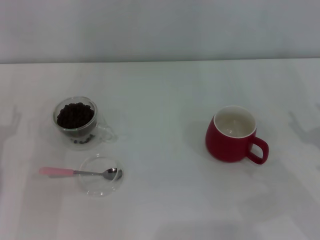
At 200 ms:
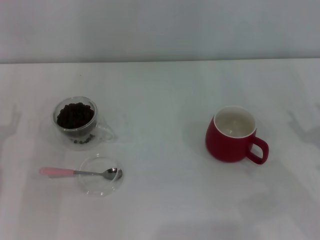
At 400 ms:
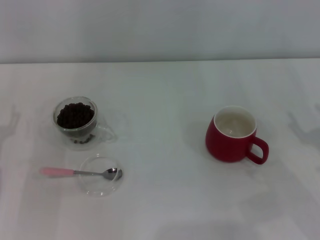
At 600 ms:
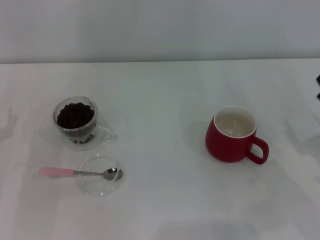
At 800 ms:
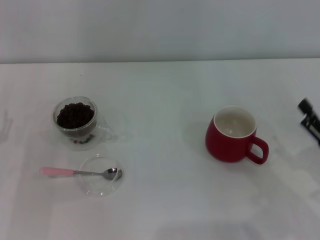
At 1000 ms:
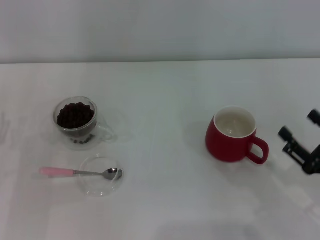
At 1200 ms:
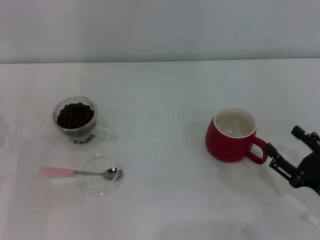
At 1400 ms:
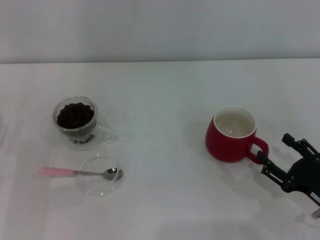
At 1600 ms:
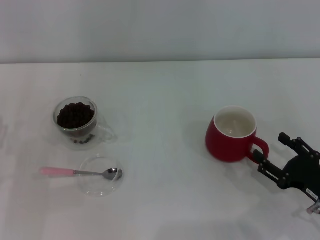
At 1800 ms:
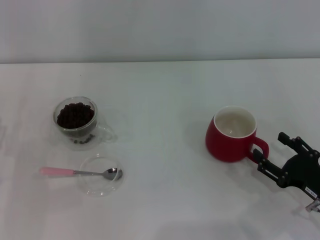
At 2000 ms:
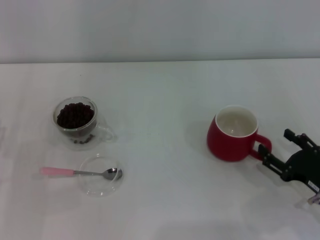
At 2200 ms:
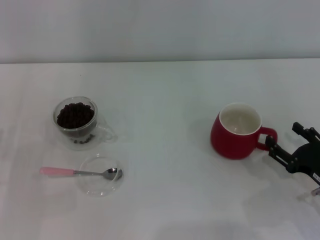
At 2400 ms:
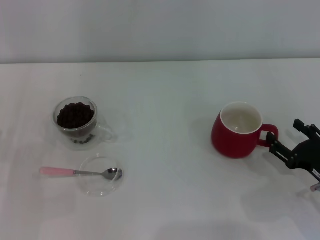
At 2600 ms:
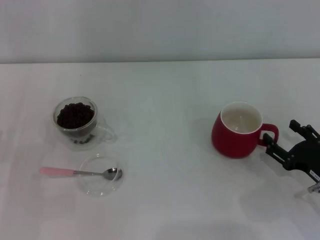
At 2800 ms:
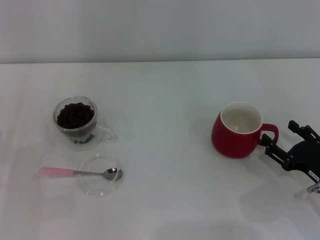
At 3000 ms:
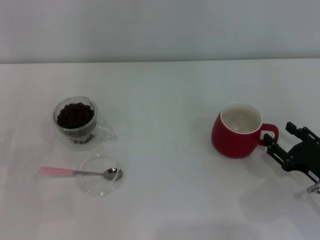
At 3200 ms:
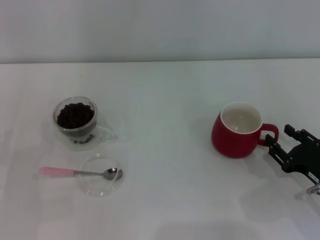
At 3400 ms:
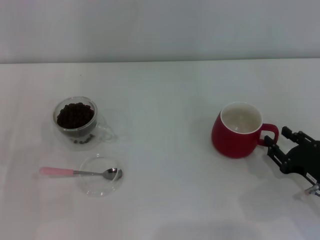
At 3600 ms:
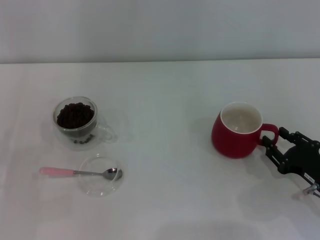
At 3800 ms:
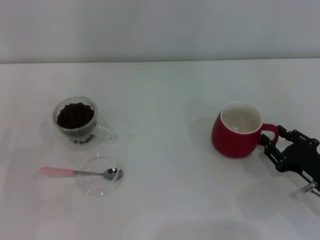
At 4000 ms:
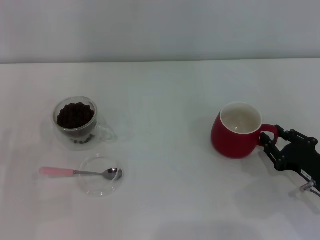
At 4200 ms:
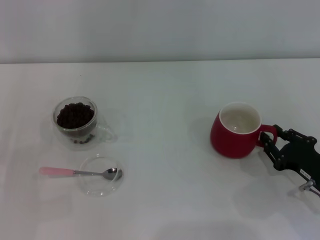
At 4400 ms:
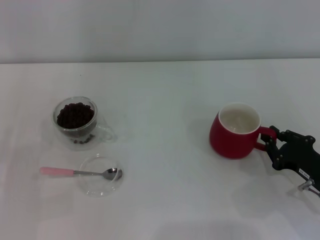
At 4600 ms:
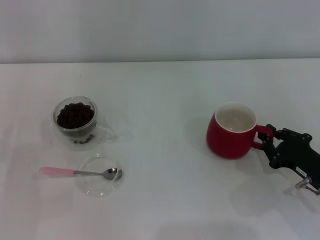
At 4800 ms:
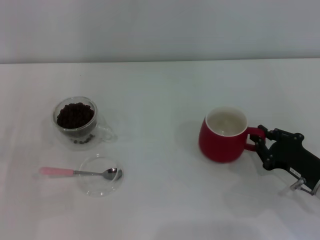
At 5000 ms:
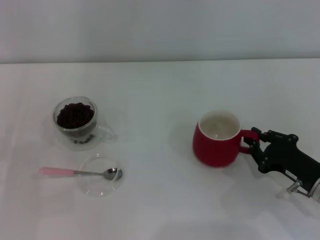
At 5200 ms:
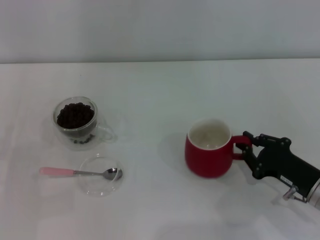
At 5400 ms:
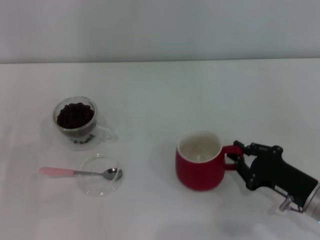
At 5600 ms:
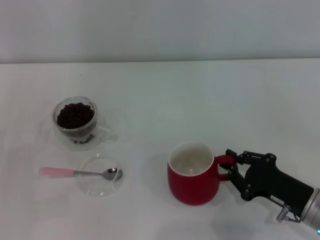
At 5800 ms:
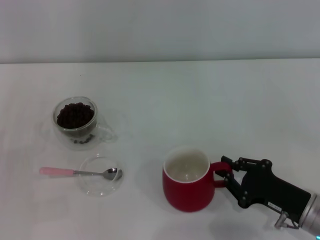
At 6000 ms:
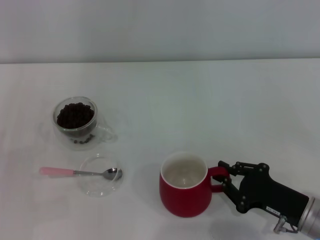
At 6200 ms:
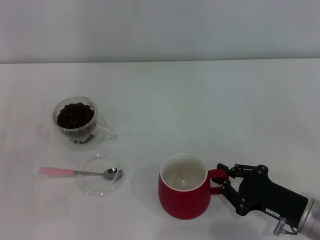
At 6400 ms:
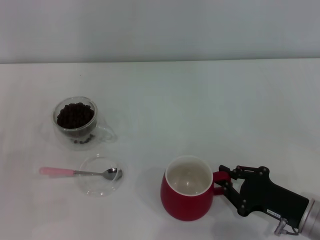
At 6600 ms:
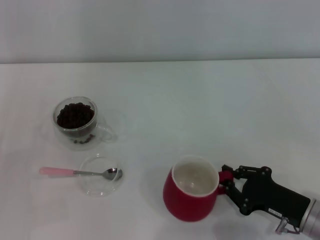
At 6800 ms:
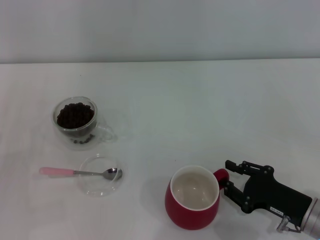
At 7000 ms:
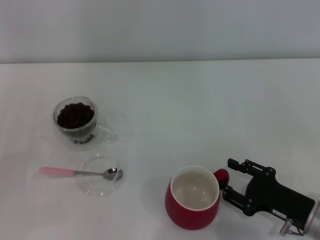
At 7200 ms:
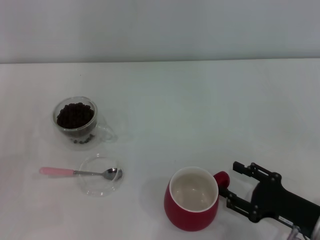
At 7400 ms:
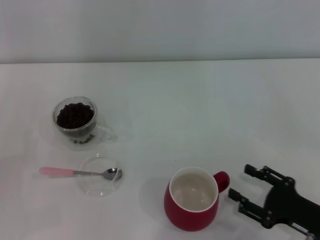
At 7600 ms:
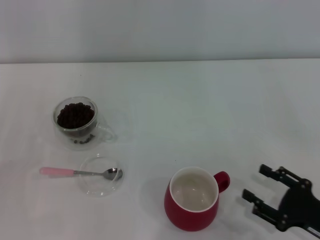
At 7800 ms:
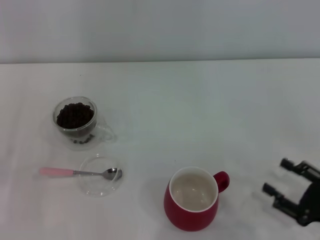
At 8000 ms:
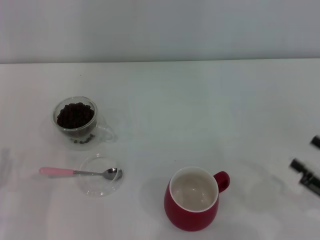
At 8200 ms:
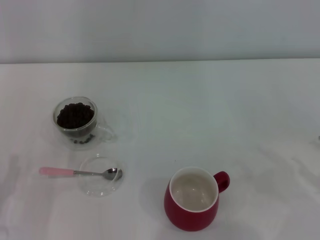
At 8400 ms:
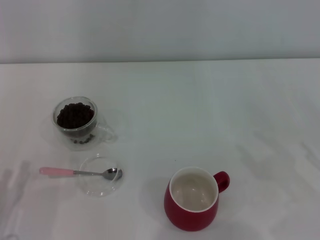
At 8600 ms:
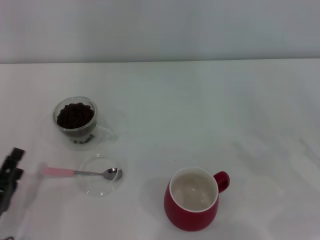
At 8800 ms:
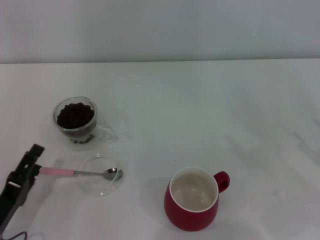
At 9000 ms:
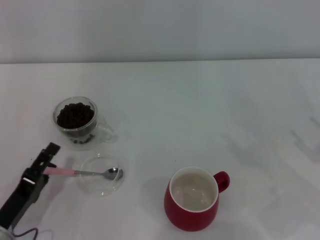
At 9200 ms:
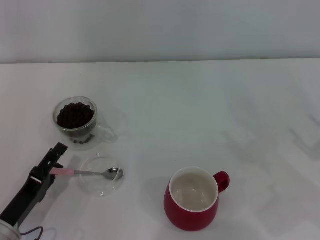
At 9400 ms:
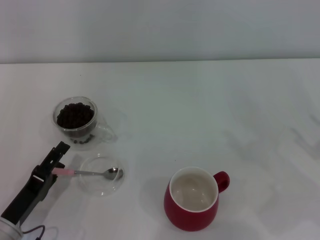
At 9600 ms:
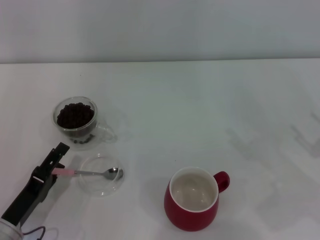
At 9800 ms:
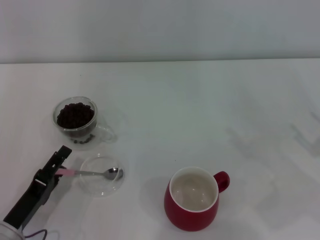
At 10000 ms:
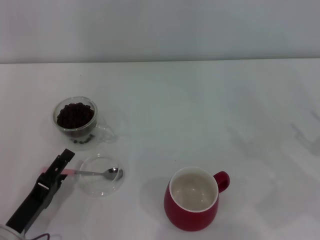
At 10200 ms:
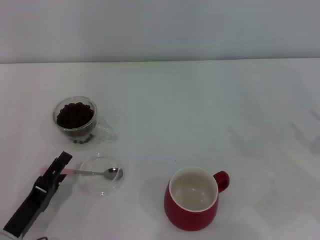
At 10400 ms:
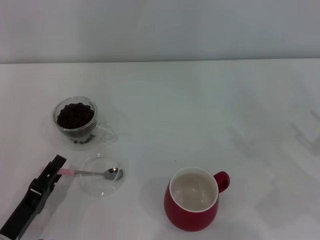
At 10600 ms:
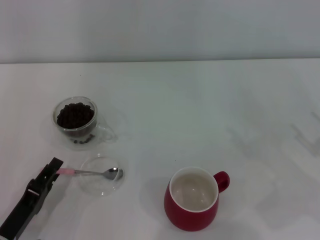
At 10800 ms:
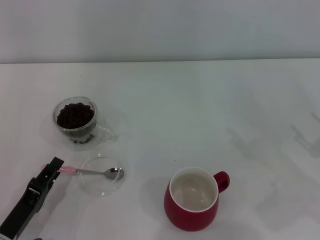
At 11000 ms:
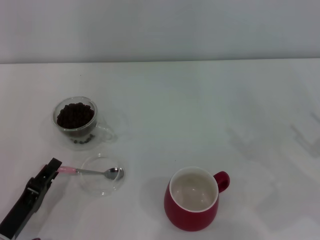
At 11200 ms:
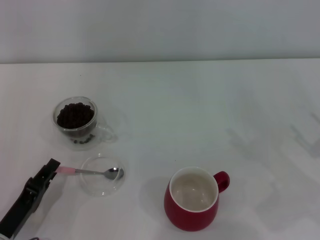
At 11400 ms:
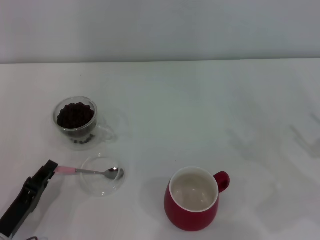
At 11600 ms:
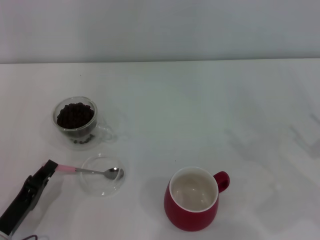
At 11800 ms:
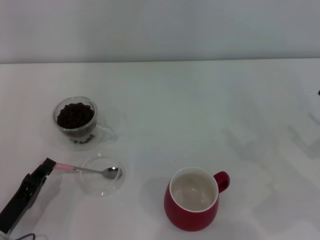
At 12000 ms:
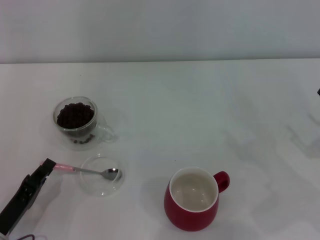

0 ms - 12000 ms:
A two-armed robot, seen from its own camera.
Task of the whole recording: Use a pink spoon to take out the coffee beans from the glass and pour them into the red cup.
Step, 0 ms - 7400 ms: Move the cup to the center of view with the left gripper.
0 ms - 1600 ms: The right gripper heads downward, covering some 5 cm.
1600 ms - 3000 ms: The grippers make only small movements.
3000 ms - 4400 ms: The right gripper closes its fingers.
4400 ms - 6000 ms: The right gripper shifts by approximately 5 cm.
6000 ms - 7600 ms: The right gripper changes place by roughly 5 cm, and opens.
7600 ms - 9000 ms: The left gripper shifts some 10 cm to the right. Meanwhile the right gripper heads to the right, upward and forward, covering some 10 cm.
9000 ms - 10400 ms: The grippers make only small movements.
10400 ms - 12000 ms: The left gripper closes up.

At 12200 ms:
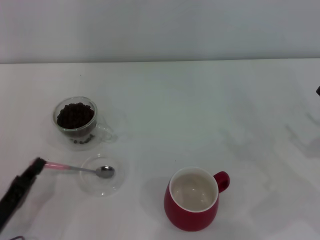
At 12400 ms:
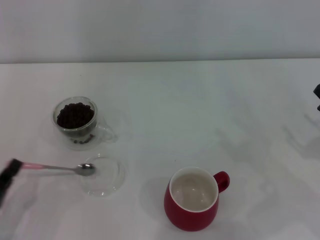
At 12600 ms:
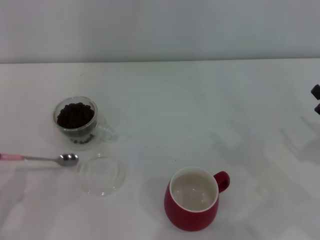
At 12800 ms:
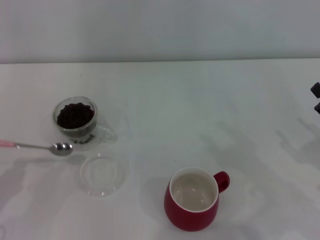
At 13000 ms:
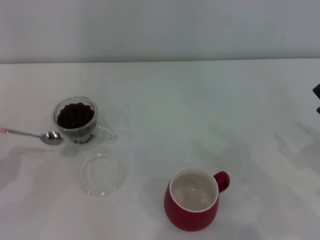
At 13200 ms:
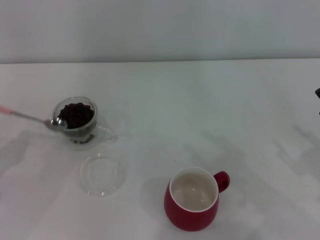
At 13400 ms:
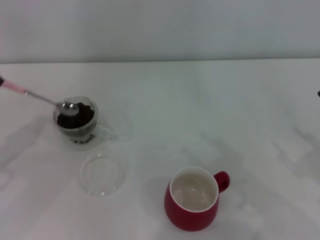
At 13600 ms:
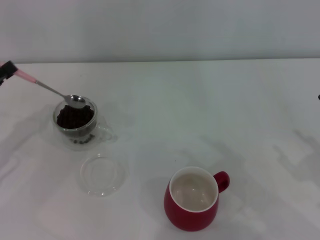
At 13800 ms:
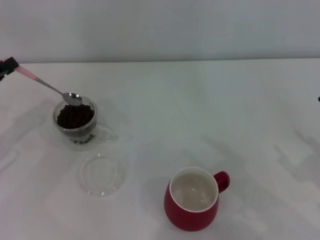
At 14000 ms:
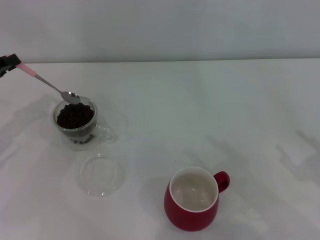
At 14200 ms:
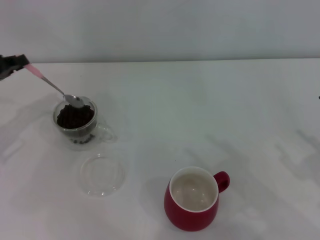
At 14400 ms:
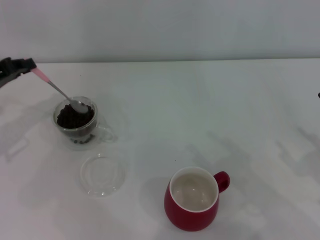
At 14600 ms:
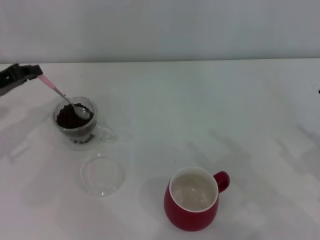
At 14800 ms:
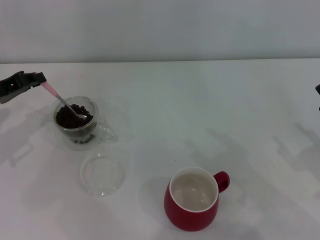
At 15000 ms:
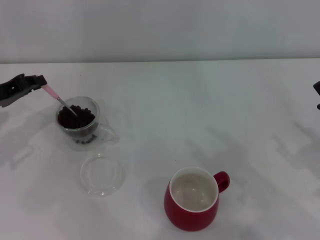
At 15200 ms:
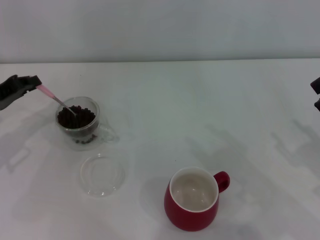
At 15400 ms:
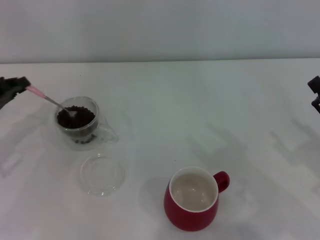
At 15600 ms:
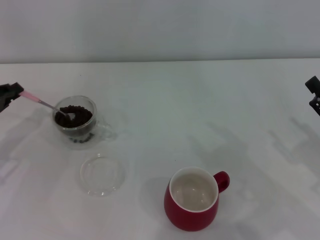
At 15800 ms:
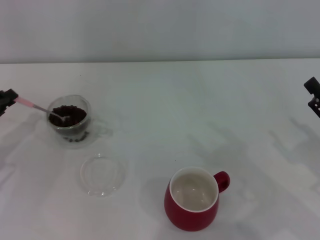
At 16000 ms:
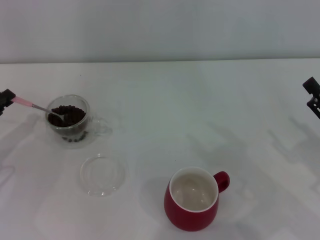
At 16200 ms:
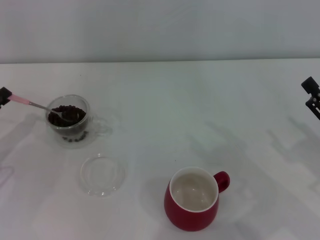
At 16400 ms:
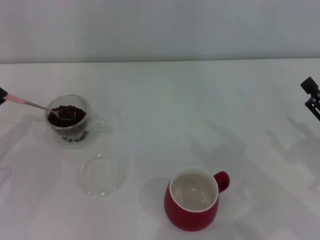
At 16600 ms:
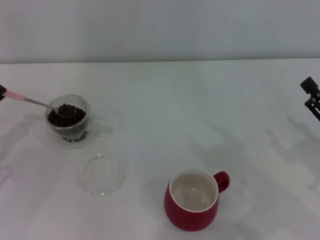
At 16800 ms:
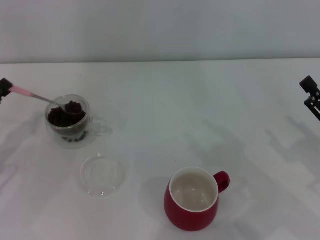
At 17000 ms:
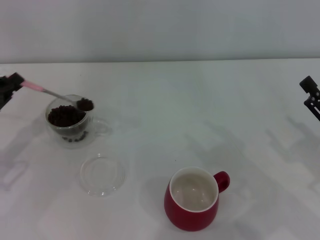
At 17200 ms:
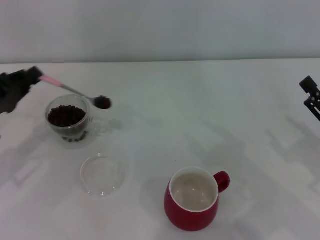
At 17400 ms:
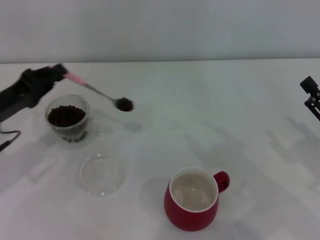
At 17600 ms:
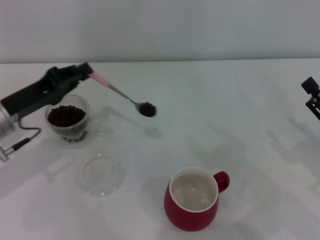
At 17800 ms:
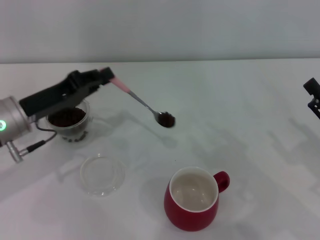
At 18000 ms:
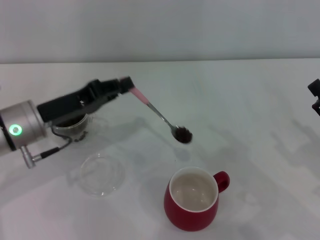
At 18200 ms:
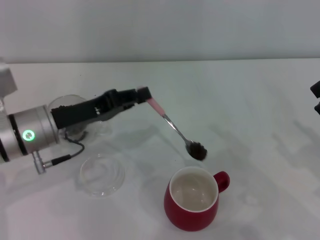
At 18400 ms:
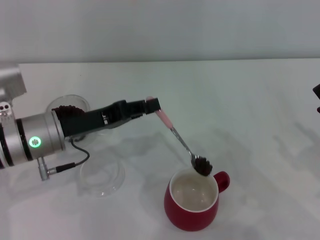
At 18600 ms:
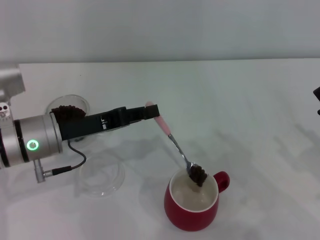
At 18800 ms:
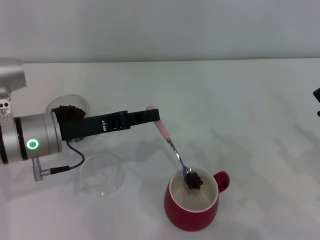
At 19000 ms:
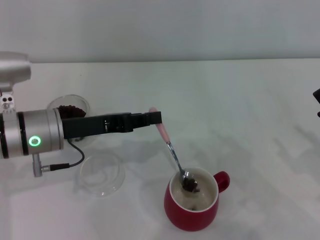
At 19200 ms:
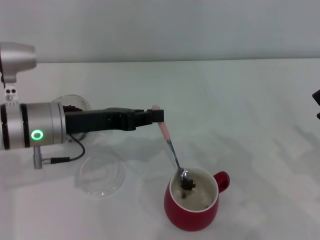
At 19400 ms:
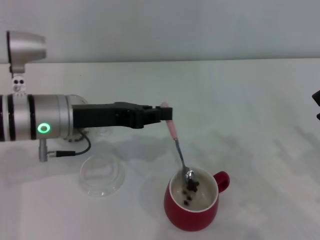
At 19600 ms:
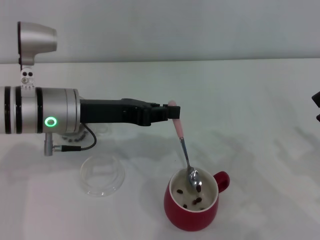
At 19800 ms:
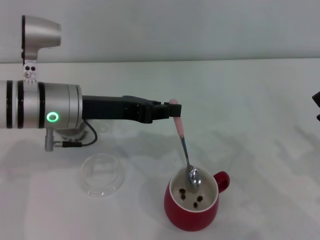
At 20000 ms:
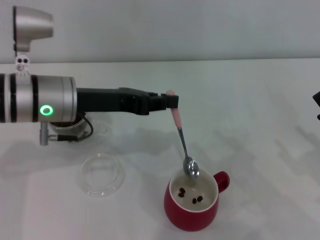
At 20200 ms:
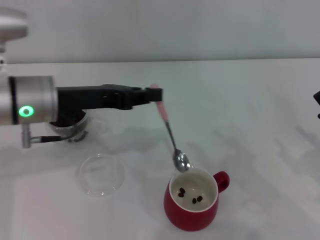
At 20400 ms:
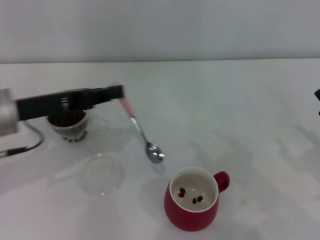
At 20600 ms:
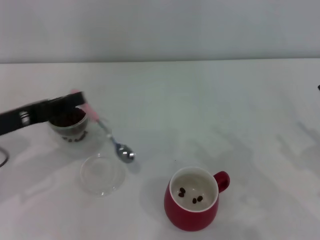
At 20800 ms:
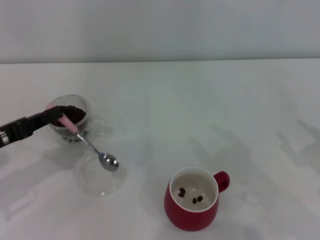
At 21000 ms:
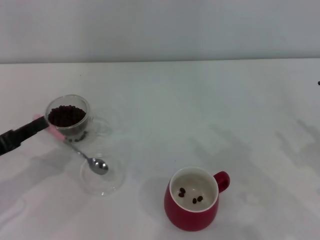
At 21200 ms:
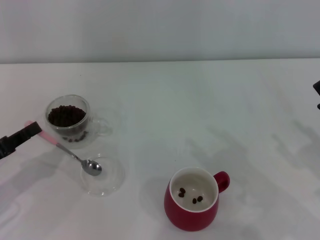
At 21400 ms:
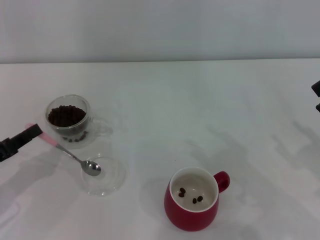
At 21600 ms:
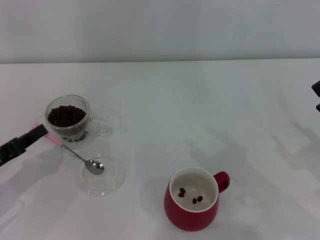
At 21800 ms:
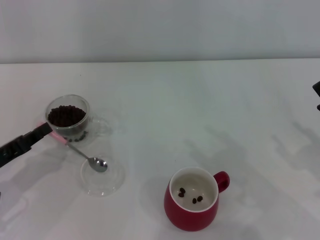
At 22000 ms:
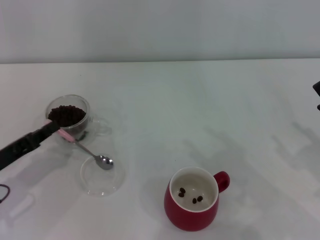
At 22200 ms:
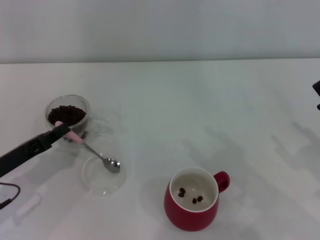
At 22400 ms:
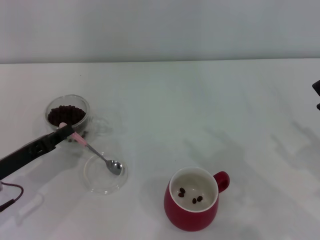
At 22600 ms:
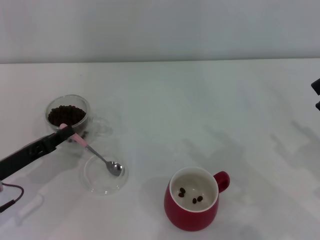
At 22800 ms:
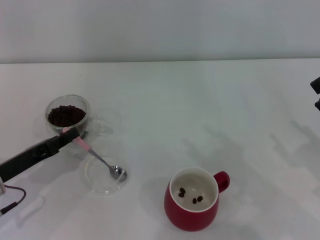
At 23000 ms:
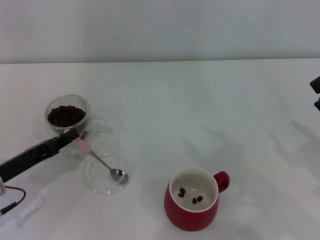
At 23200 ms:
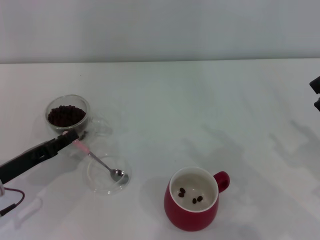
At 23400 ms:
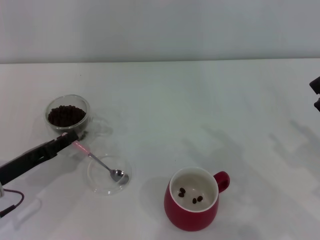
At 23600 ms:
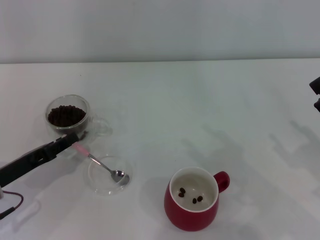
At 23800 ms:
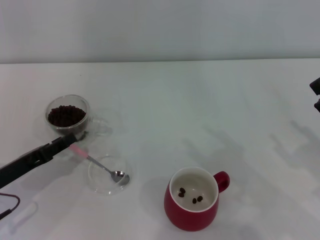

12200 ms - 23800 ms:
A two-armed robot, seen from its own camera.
Task of the whole recording: Use a pink spoon to take out the coffee beans from the glass and pour them into the red cup.
Step, 12600 ms - 20200 ms: Scoop a spoonful of beans into the cup with the right gripper.
12200 ms - 13600 ms: The left gripper goes some 20 cm forward, upward and to the left.
13600 ms - 15000 ms: The left gripper moves forward, approximately 5 cm.
15000 ms - 16600 ms: The left gripper travels backward by approximately 5 cm.
16600 ms - 18000 ms: The left gripper goes some 15 cm to the right.
18000 ms - 19400 ms: The left gripper shifts by approximately 5 cm.
19400 ms - 21000 ms: The left gripper shifts roughly 15 cm to the left and backward.
21000 ms - 22400 ms: The left gripper ends up approximately 5 cm from where it was.
22400 ms - 23800 ms: The left gripper opens.
